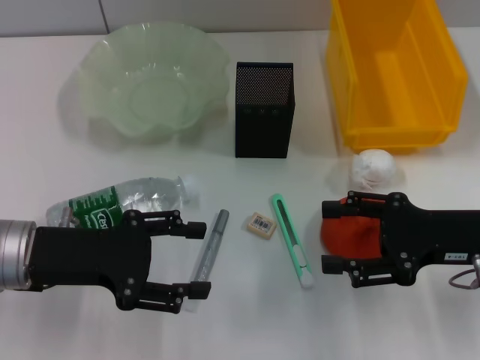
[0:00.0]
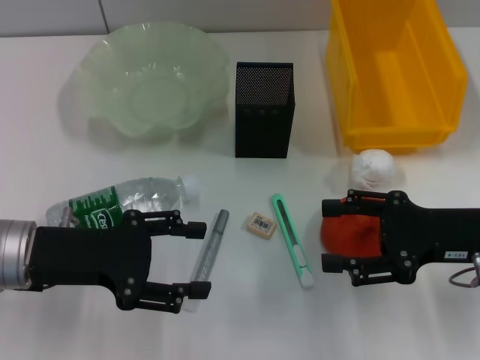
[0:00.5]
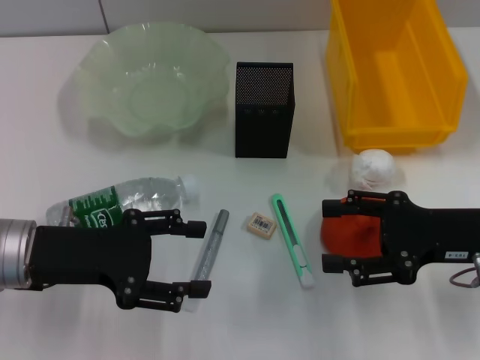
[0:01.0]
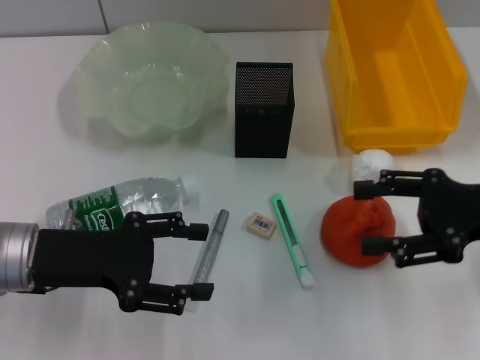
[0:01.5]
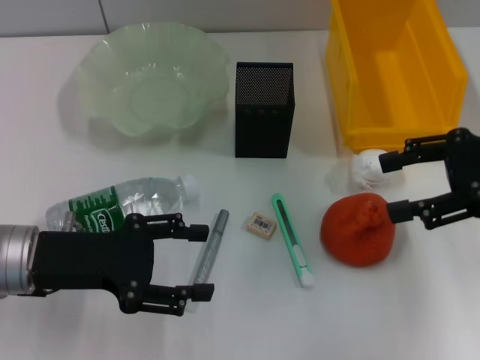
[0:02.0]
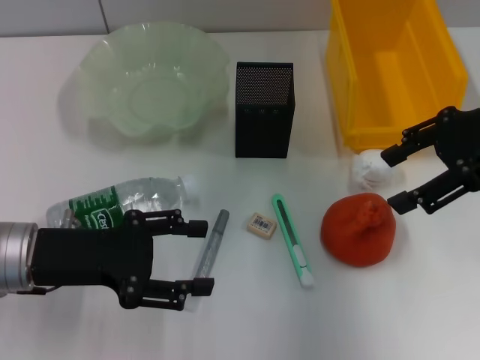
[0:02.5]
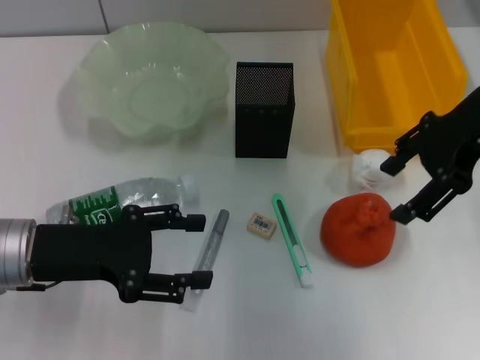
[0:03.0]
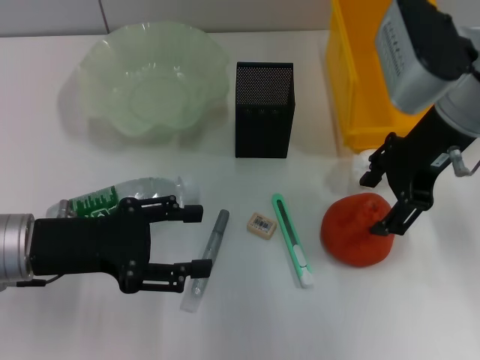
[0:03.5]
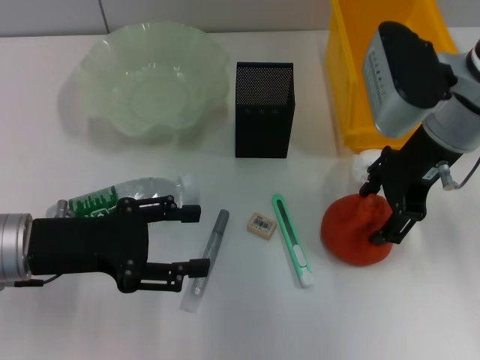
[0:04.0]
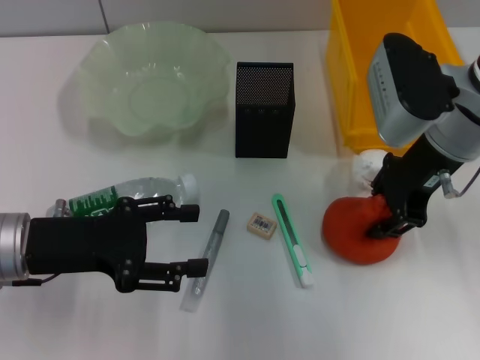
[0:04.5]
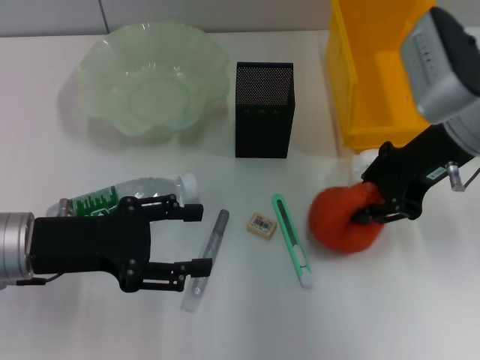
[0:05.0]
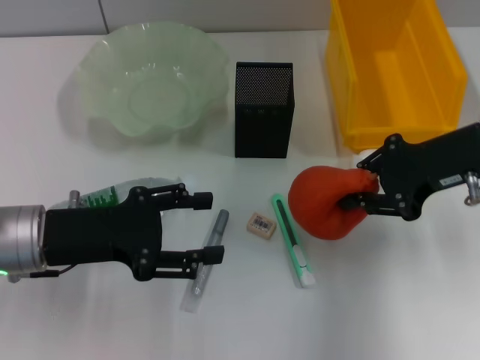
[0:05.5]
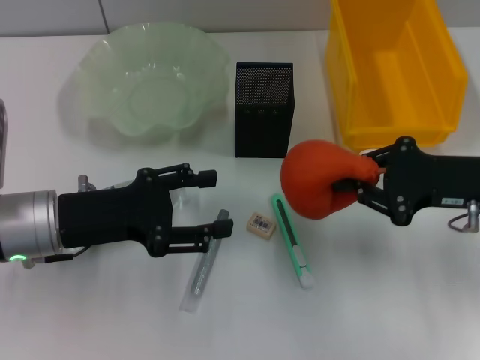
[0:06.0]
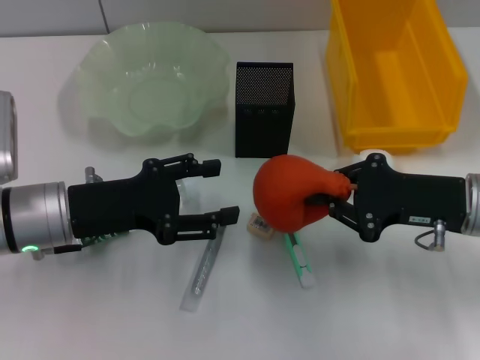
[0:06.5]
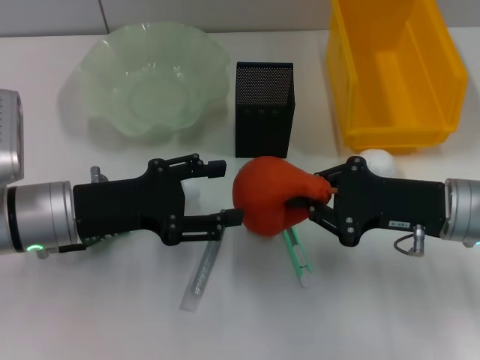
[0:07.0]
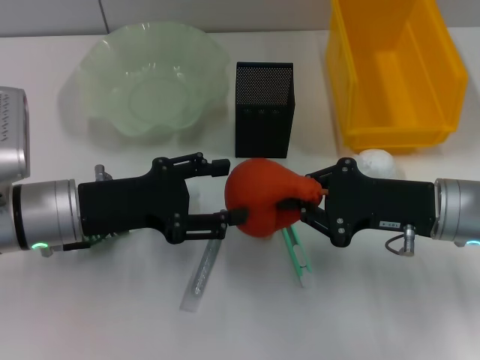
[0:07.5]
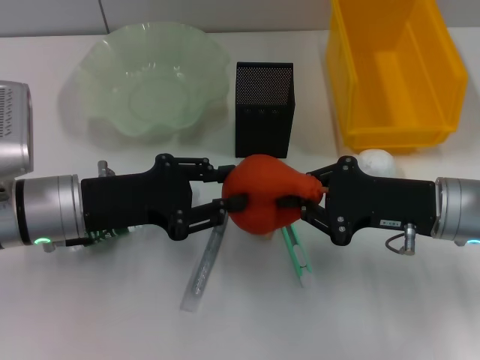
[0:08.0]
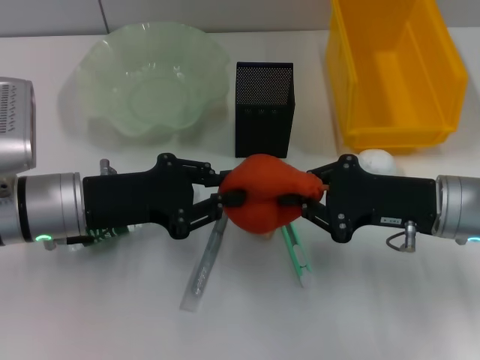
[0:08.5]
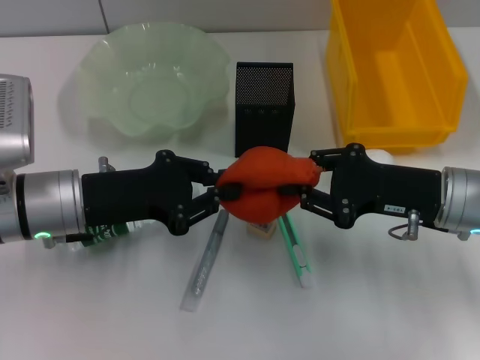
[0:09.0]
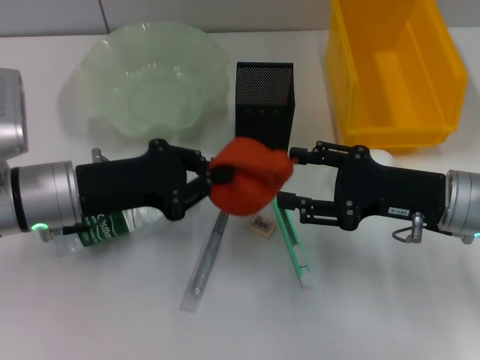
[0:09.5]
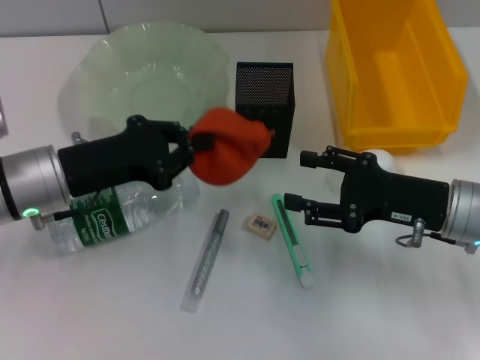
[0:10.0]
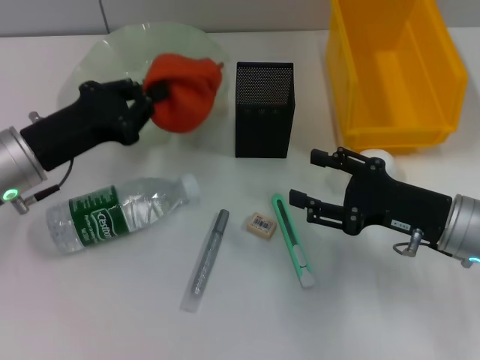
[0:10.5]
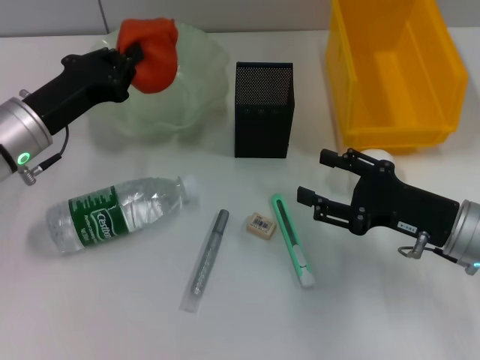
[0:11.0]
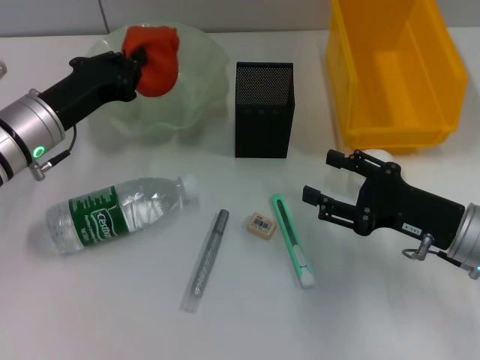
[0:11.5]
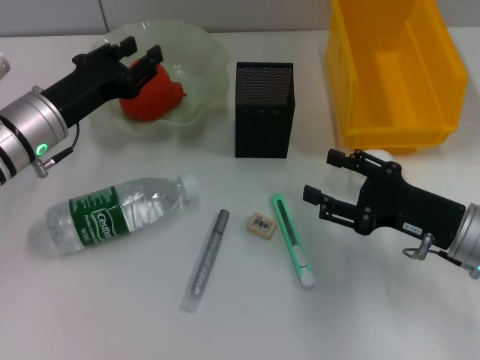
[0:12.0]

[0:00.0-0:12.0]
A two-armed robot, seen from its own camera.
Step, 0:00.0 to 0:04.5: Grab the orange with the right hand.
Step, 0:05.0 to 0:09.5: Pass the orange from the right hand to the left hand.
Step, 0:10.0 to 0:11.5: Place the orange into the fruit bowl with the left hand.
0:00.0 to 0:02.0: The right gripper moves upward, roughly 10 cm.
0:02.0 to 0:04.0: The right gripper heads to the left and forward, covering approximately 15 cm.
0:04.0 to 0:06.0: The right gripper heads to the right, downward and backward, covering about 15 cm, and closes up.
0:06.0 to 0:08.0: The right gripper shifts approximately 5 cm to the left.
0:08.0 to 0:10.0: The right gripper opens up; the left gripper closes its fingers.
0:10.0 to 0:12.0: The left gripper moves forward, roughly 5 cm, and opens.

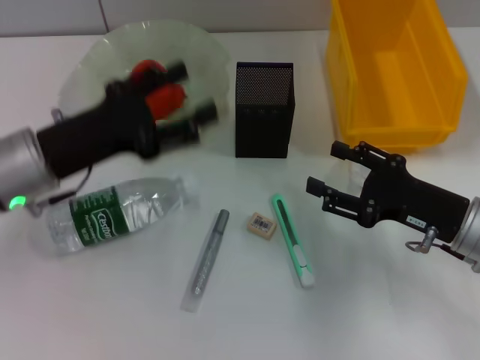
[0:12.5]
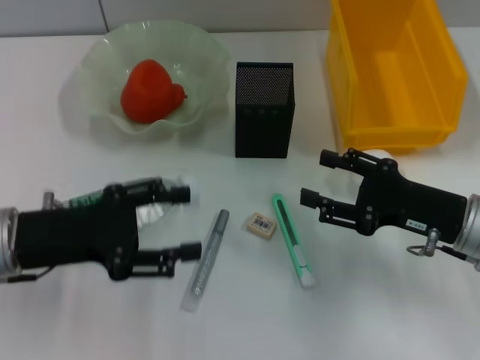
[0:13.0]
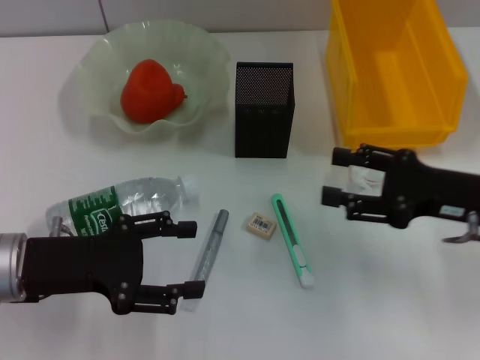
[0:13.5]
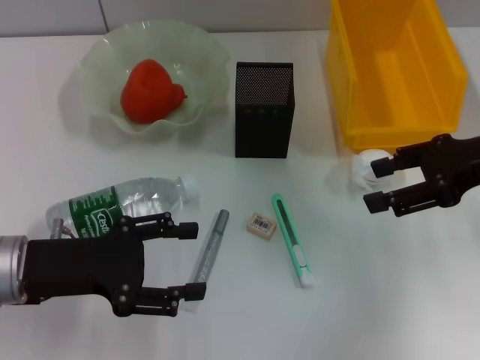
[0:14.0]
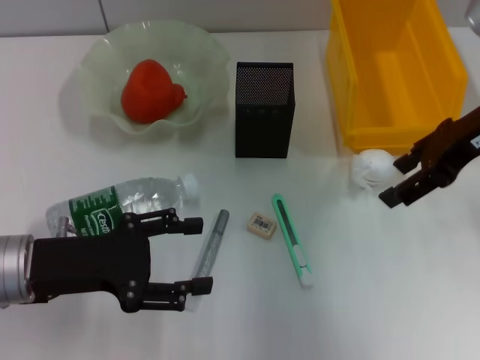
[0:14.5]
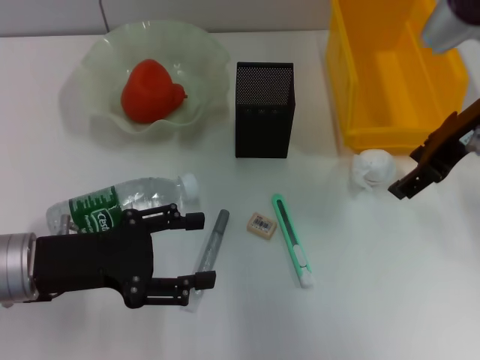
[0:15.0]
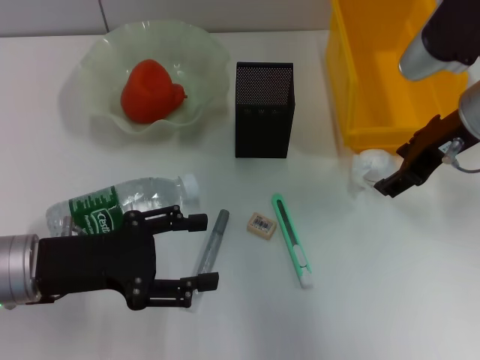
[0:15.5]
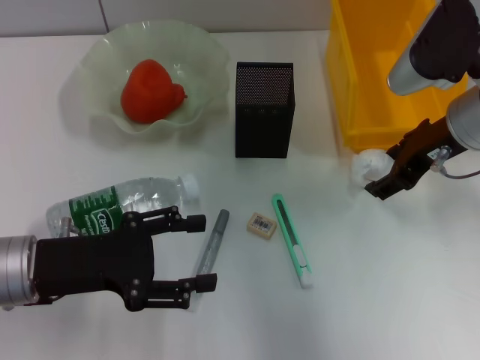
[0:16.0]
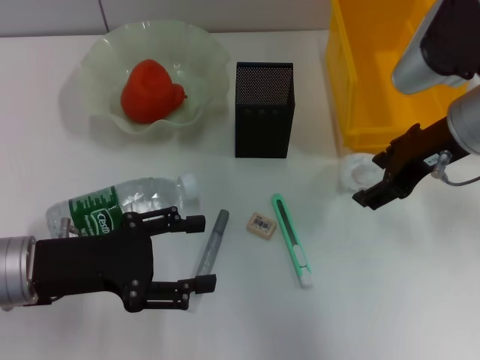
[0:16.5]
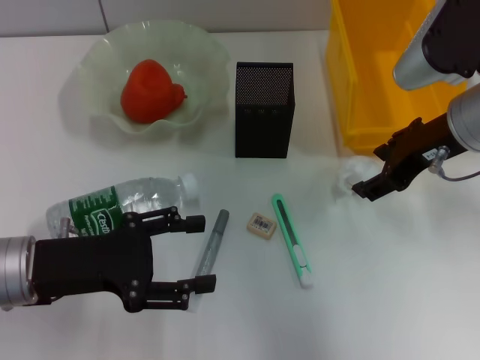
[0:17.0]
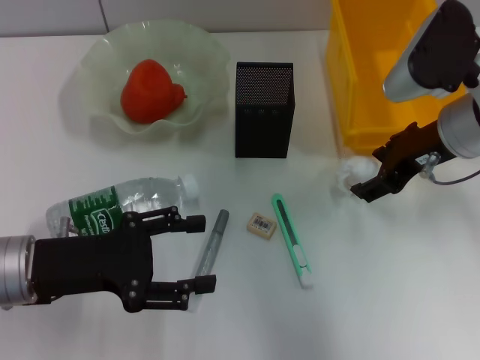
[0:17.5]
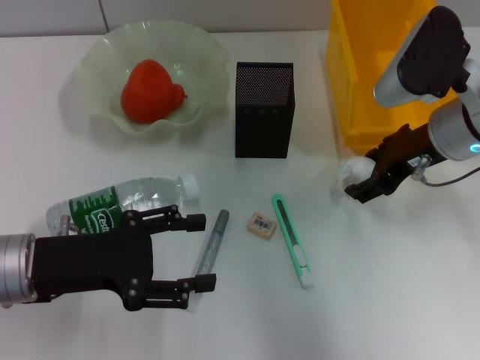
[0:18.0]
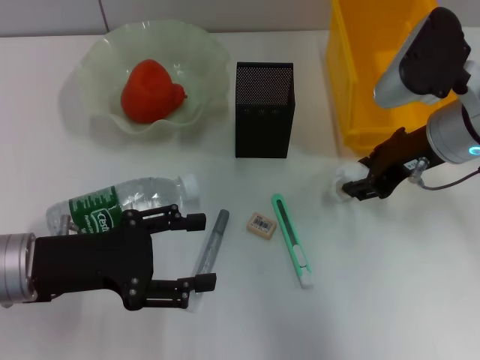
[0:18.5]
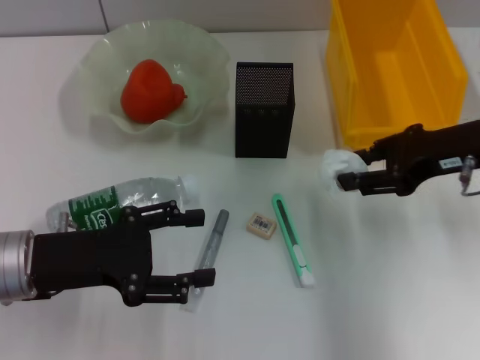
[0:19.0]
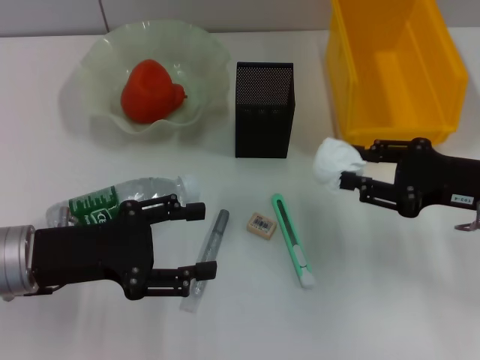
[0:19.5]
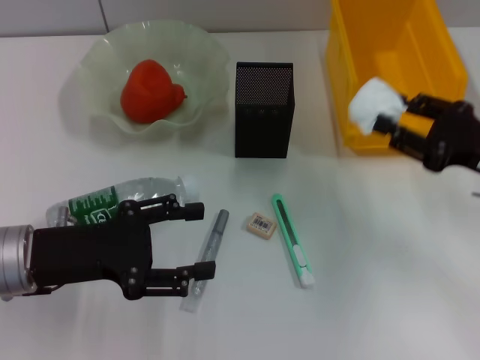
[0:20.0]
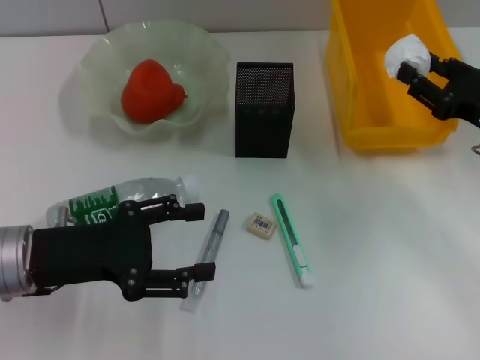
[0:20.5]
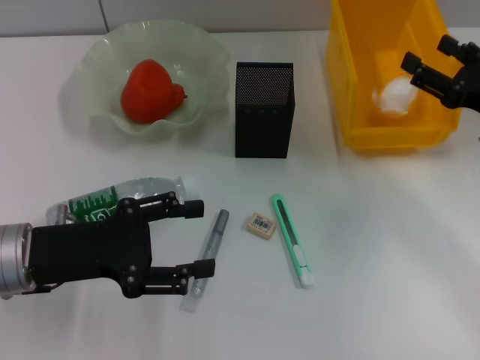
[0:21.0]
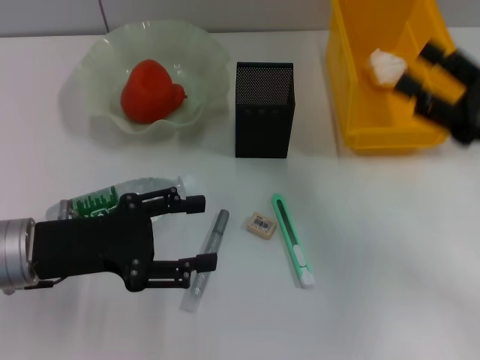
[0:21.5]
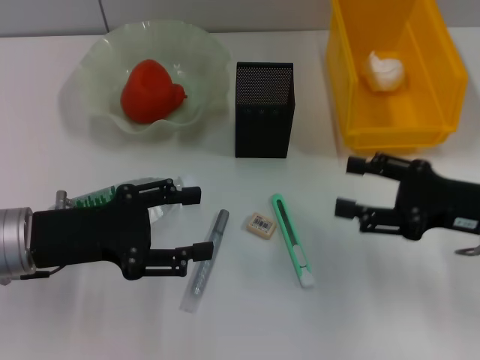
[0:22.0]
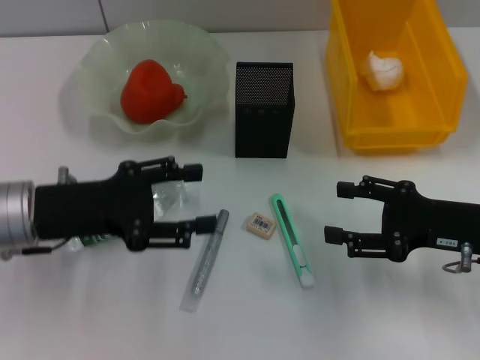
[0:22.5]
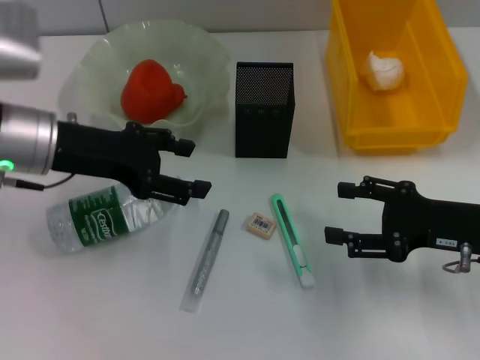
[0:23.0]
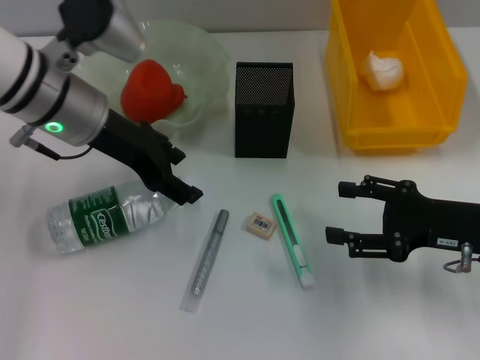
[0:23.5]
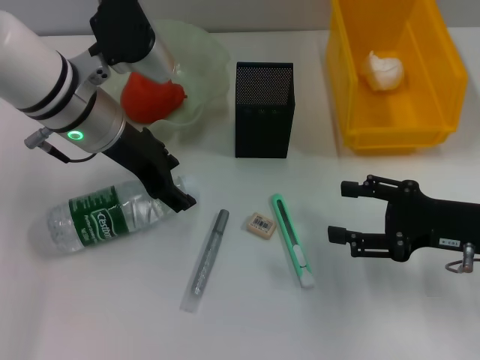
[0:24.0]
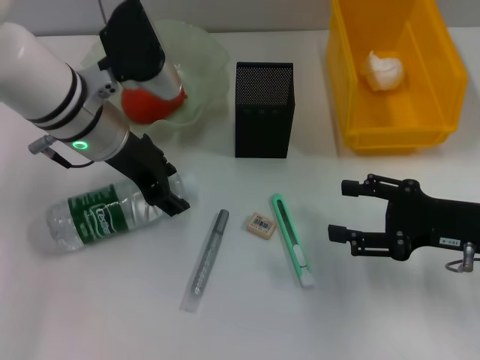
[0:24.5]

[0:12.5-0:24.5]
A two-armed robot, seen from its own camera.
Step, 0:12.5 to 0:18.0: Grab the paper ball with the right hand.
Step, 0:18.5 to 0:21.0: Place the paper ball into the trash can with the right hand.
0:12.5 to 0:14.5: The right gripper moves upward and forward, about 20 cm, while the left gripper shifts roughly 5 cm backward.
0:14.5 to 0:16.5: The right gripper moves some 5 cm.
0:16.5 to 0:18.5: The grippers move only a little.
0:18.5 to 0:20.5: The right gripper heads to the right and downward, covering some 15 cm.
0:20.5 to 0:22.5: The right gripper heads backward, covering some 5 cm, and opens its fingers.
0:22.5 to 0:24.5: The left gripper moves forward and to the right, some 15 cm.

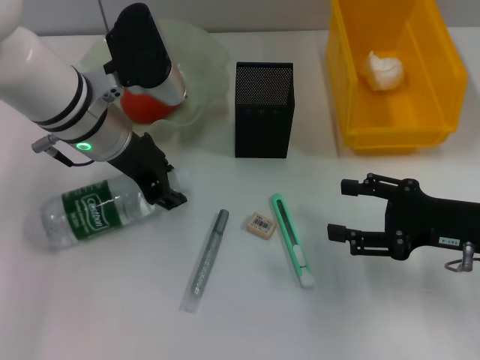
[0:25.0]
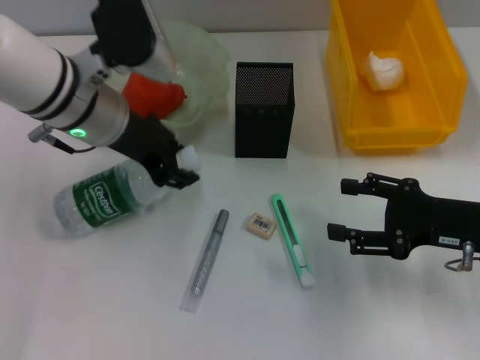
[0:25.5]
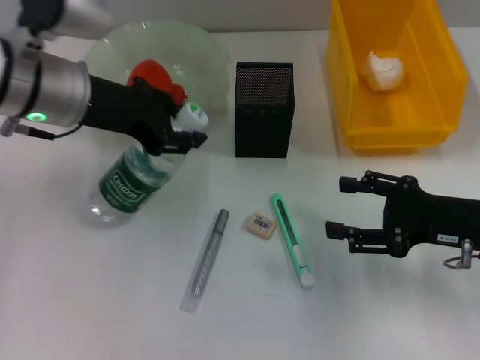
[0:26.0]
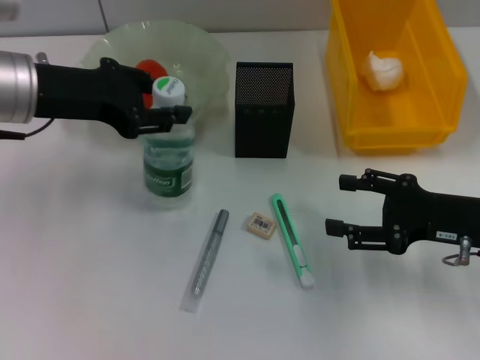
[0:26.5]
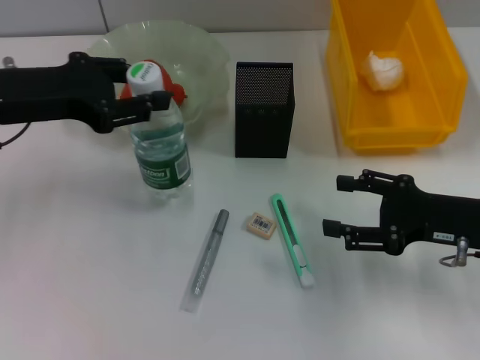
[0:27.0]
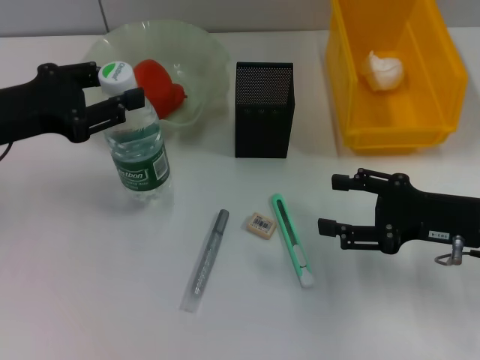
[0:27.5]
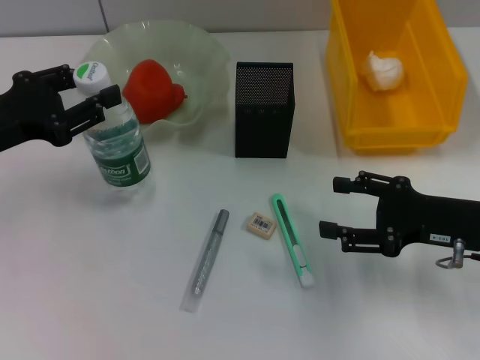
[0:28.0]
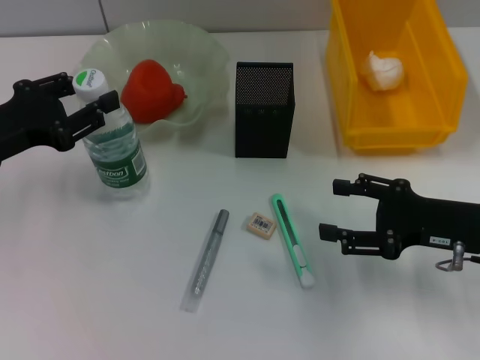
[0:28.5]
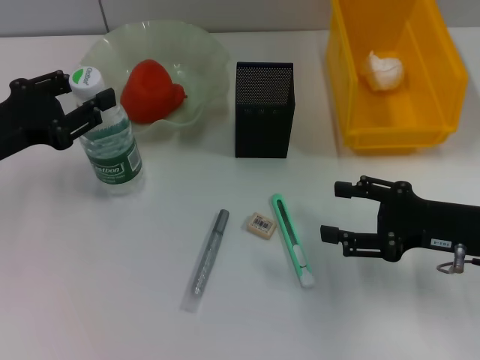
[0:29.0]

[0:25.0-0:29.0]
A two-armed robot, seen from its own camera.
0:25.0 to 0:27.0: The left gripper heads to the left, covering roughly 10 cm.
0:27.0 to 0:29.0: The left gripper moves downward, about 5 cm.
